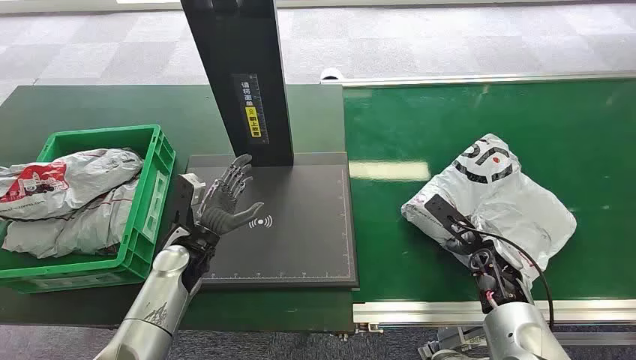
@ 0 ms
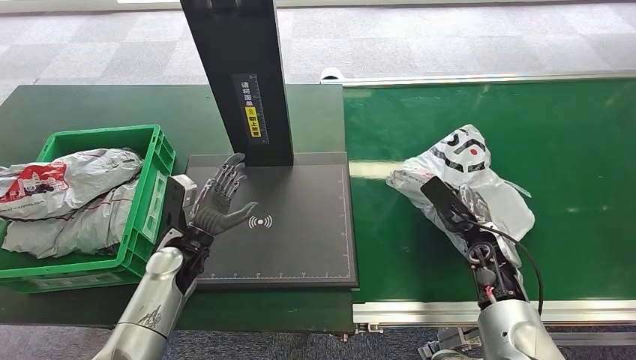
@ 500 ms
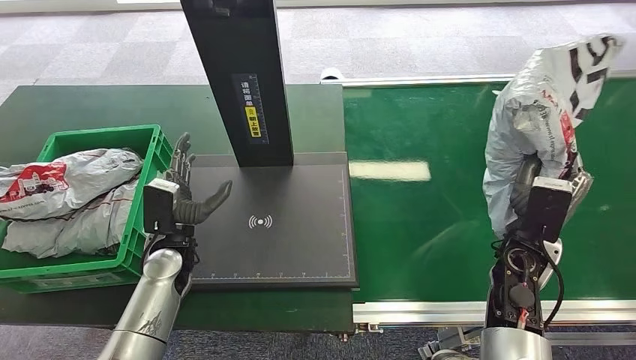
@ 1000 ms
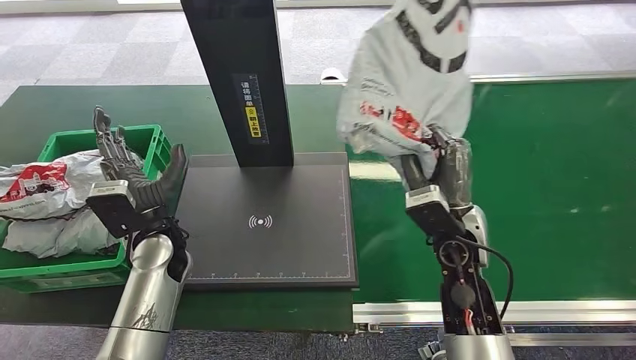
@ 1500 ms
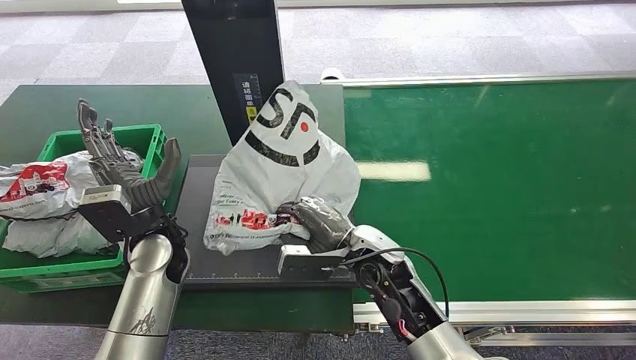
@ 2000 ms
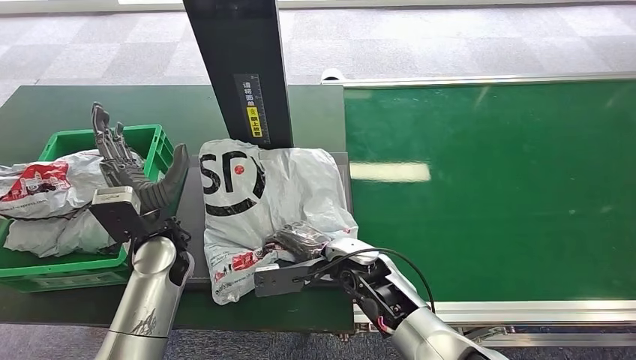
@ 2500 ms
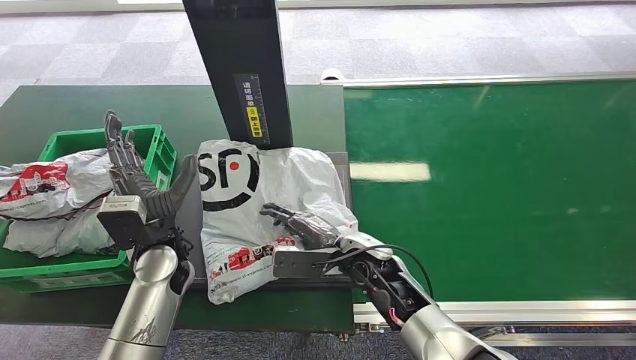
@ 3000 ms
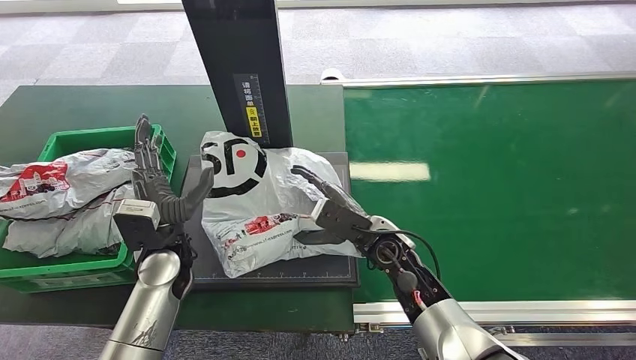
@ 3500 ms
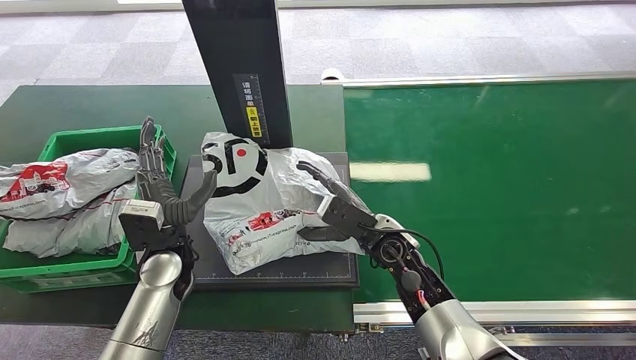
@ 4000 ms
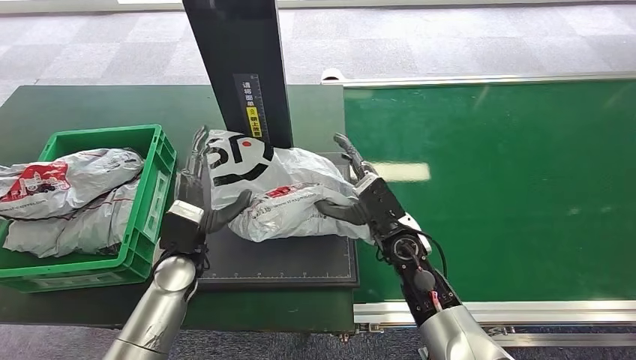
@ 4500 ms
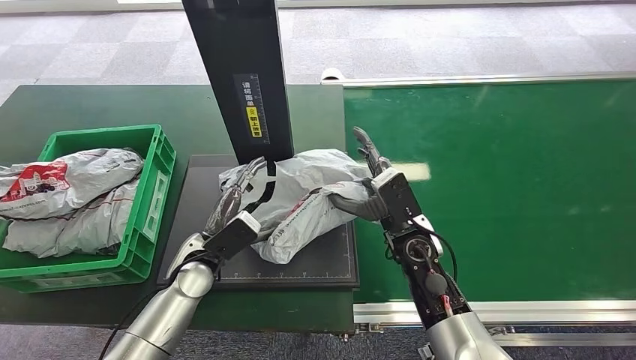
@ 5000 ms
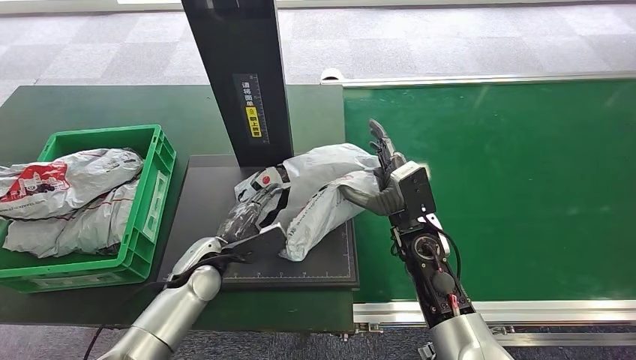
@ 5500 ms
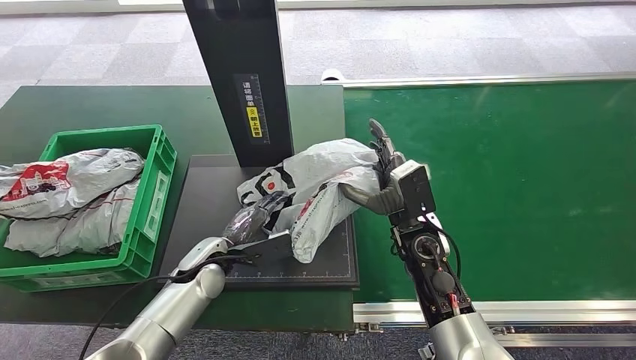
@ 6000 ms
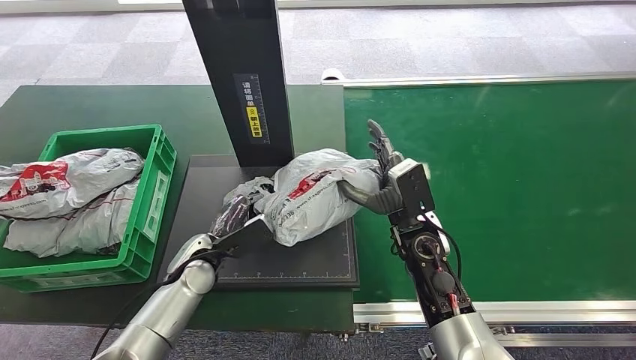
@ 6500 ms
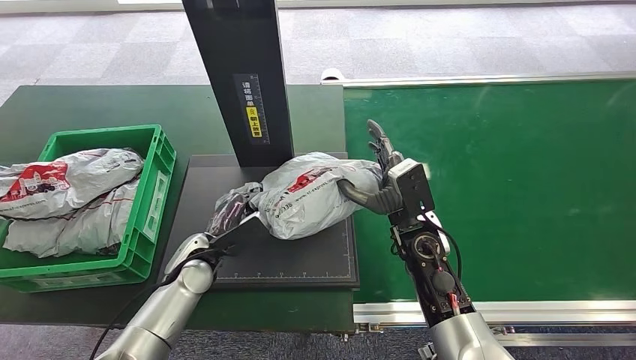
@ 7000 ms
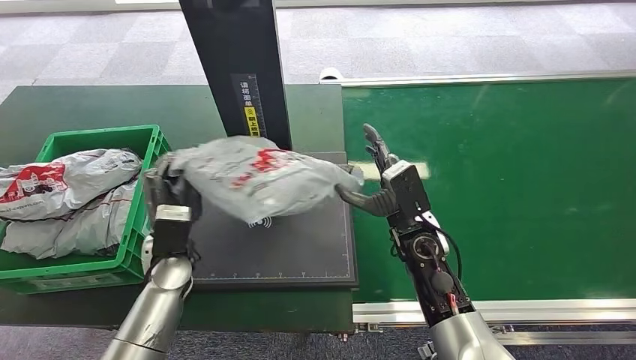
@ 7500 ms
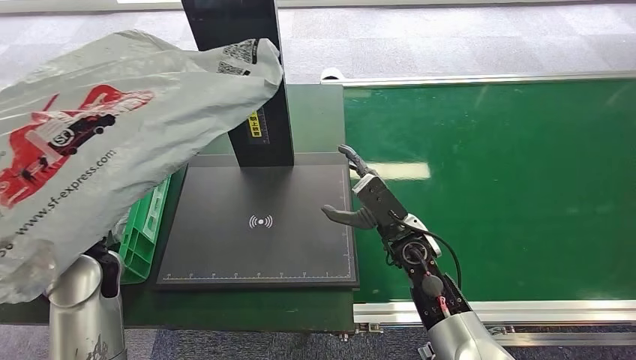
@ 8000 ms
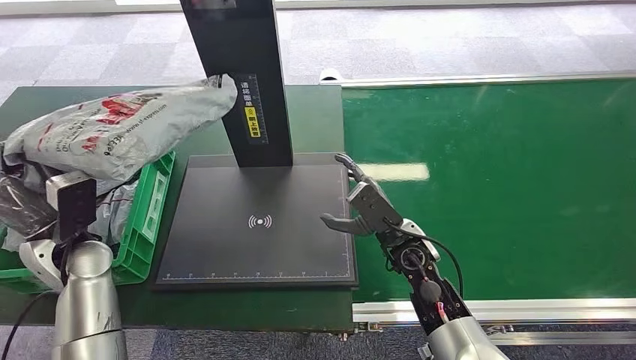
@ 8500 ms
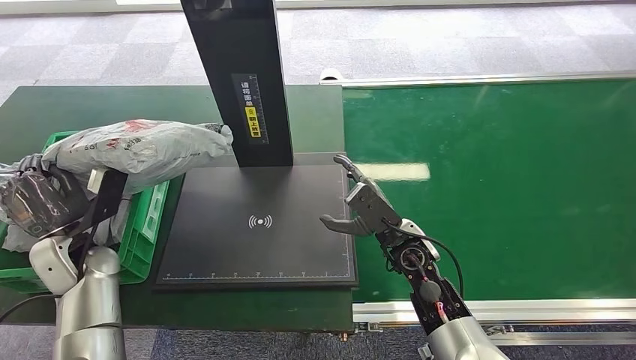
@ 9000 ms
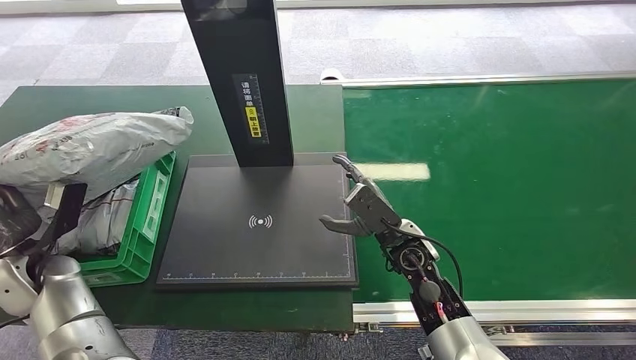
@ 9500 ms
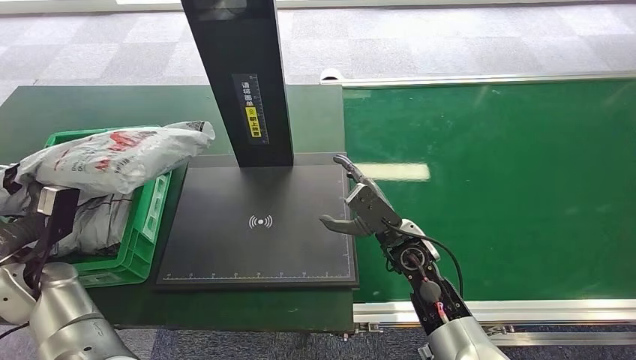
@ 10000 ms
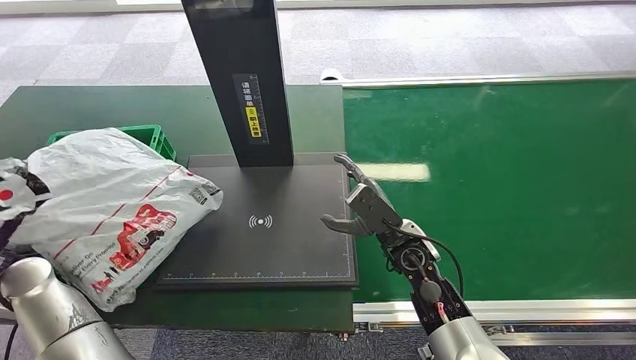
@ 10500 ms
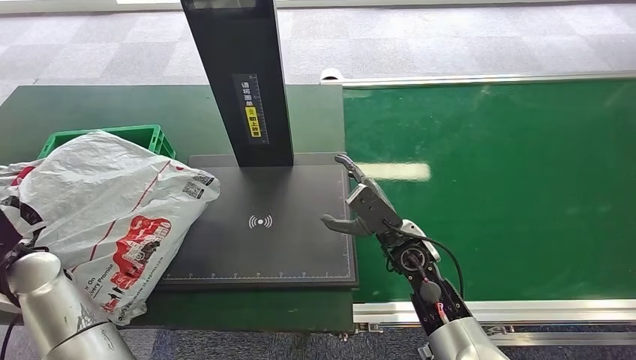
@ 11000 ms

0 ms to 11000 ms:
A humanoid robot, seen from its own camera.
Step, 0 ms to 1500 ms: Pick up the package from the conveyor belt.
Step, 2000 ms to 7000 ms: Place the package onto the inbound machine.
Step, 7500 ms to 8500 ms: Pick up the package from the inbound machine.
Step, 9000 ms to 11000 ms: Place the package into the parcel locker.
3500 ms to 5500 ms: The left hand is displaced downward by some 5 cm.
5500 ms to 7500 ms: The left hand ends up roughly 5 cm from where it was.
9000 ms to 11000 ms: The left hand moves upward, some 5 cm.
